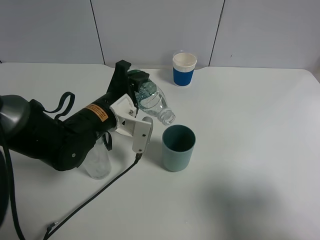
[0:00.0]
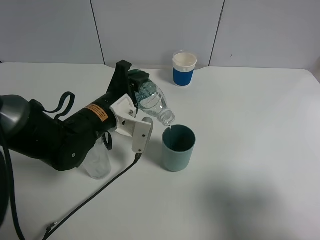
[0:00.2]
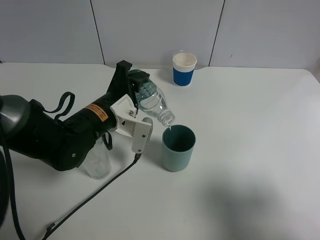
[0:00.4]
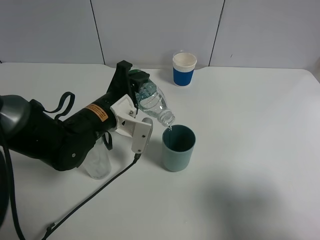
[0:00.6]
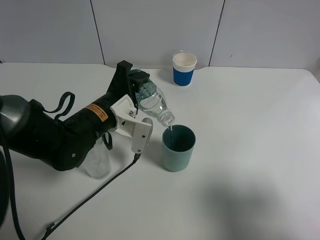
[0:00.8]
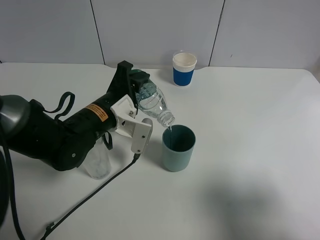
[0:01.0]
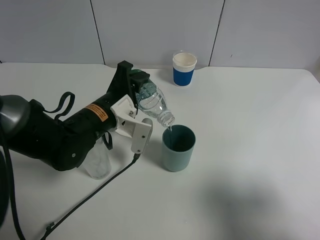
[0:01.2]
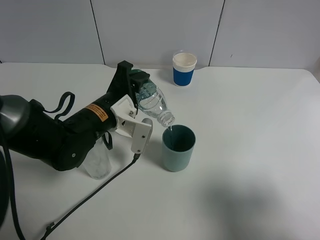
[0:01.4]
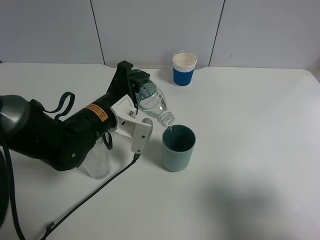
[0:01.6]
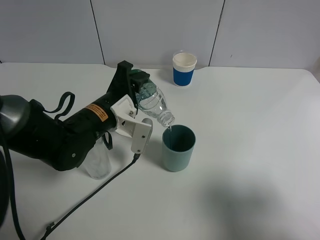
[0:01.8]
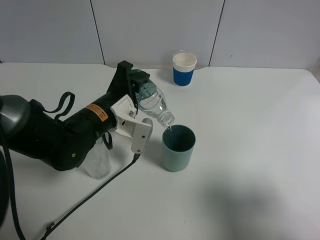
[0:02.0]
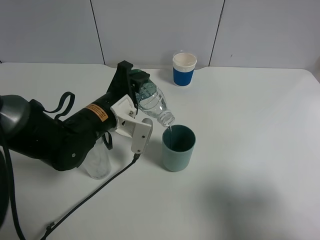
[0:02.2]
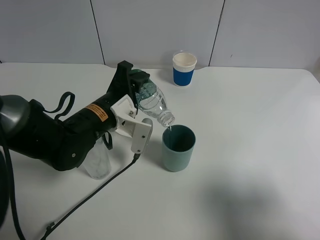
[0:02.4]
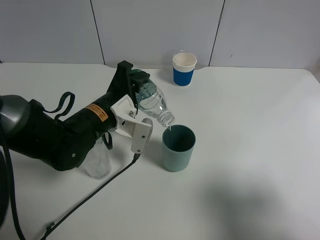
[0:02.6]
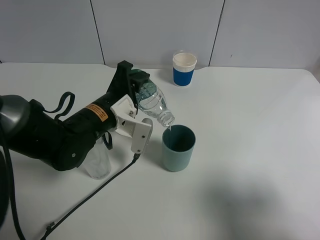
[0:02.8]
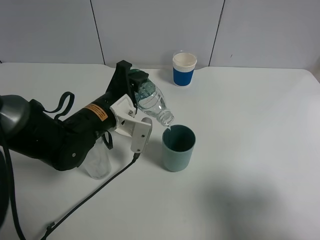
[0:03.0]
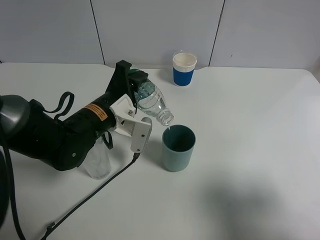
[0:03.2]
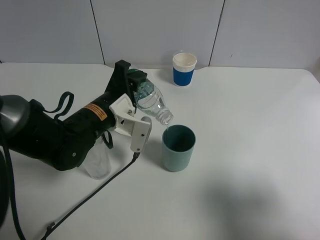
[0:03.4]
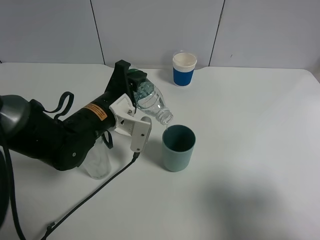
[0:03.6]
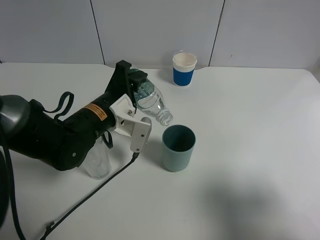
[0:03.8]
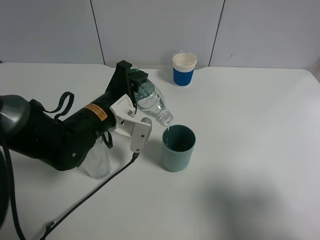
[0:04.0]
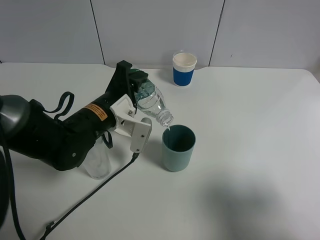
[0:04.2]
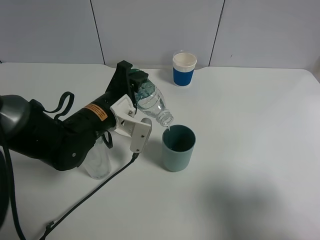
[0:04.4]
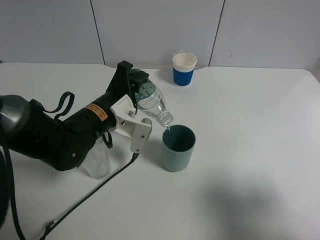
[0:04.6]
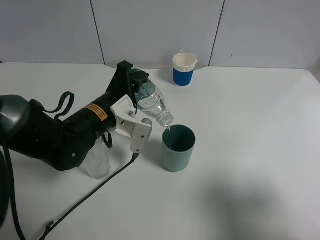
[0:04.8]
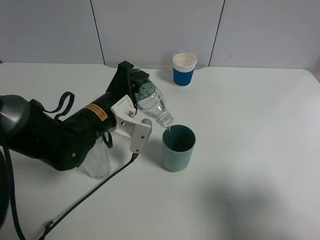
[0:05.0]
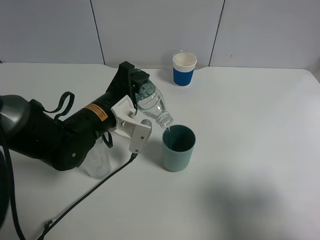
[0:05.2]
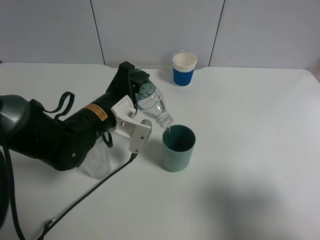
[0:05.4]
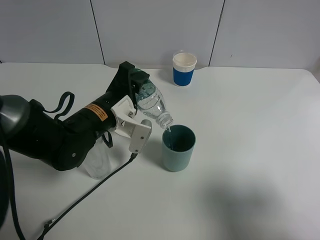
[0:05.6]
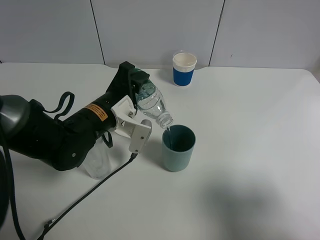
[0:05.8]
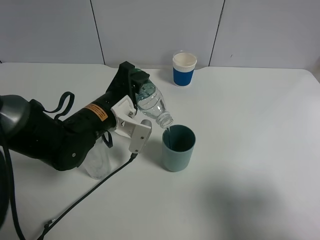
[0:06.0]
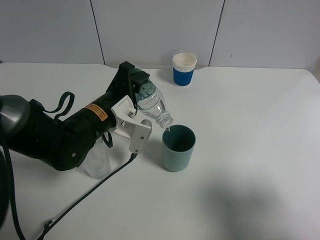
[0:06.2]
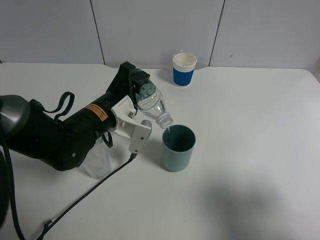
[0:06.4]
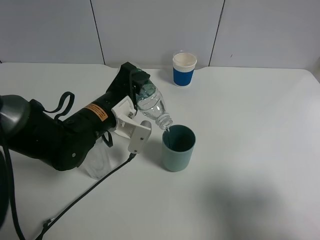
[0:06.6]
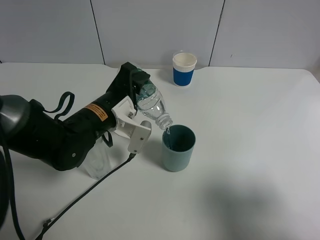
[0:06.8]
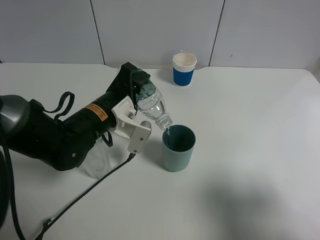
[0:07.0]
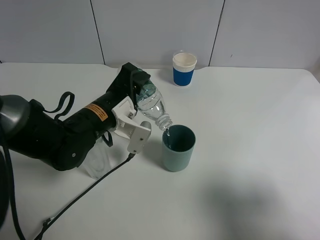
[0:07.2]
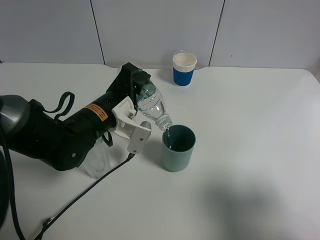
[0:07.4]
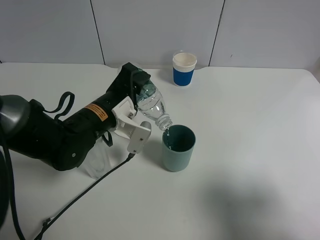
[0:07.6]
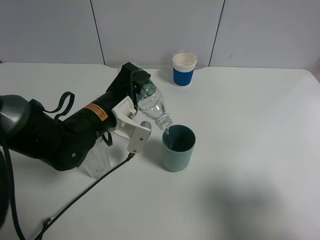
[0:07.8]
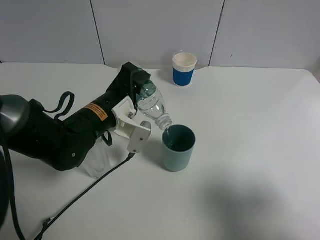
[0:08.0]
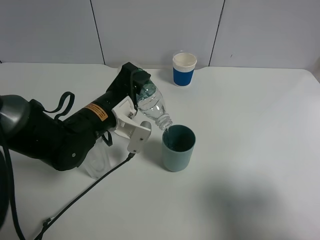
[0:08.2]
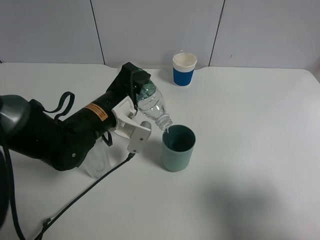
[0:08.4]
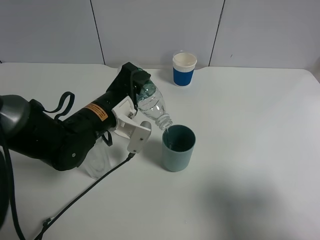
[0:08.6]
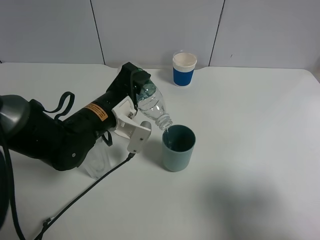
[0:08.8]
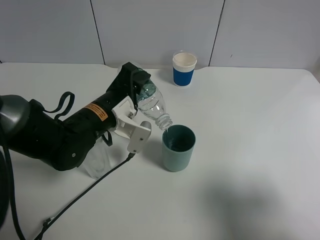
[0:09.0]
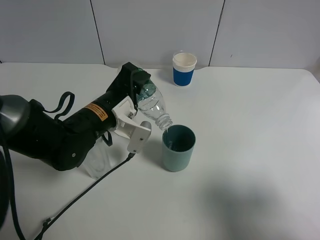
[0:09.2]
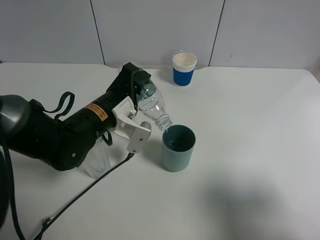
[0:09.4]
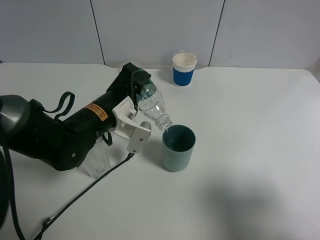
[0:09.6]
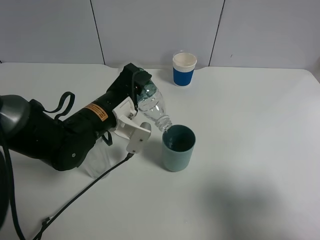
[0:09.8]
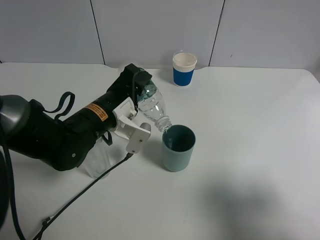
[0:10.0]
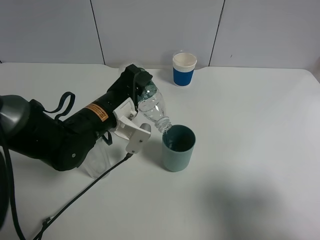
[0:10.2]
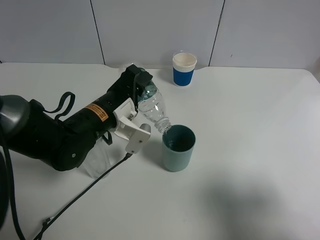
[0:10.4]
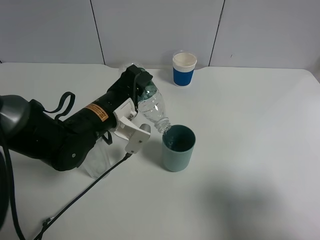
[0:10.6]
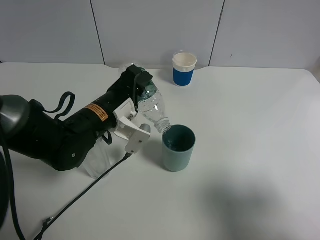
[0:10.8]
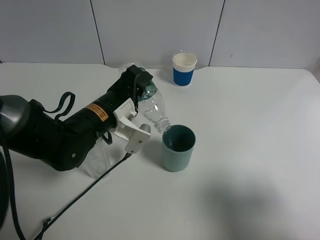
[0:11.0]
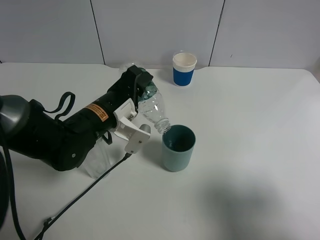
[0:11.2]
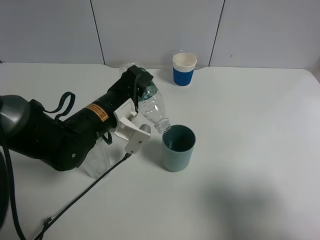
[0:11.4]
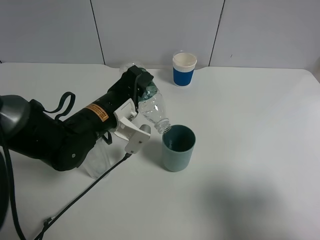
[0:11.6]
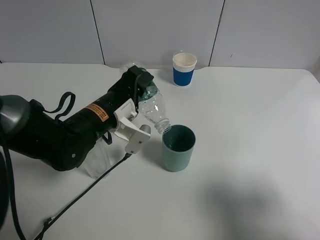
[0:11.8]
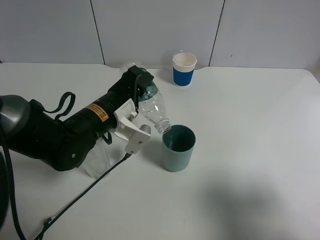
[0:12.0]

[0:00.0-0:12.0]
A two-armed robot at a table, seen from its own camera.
Task of the whole recording: use a gripper to hold the bottle of the drink and pour it into a random cup.
0:00.0 to 0:04.4: The two grippers keep their place.
0:04.4 to 0:06.0: The two grippers keep their place.
0:06.0 to 0:09.0: Both grippers stay about where they are.
0:09.0 to 0:10.4: There are only small adjustments of the grippers.
0:10.4 to 0:12.0: Both grippers stay about where they are.

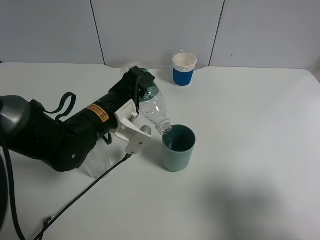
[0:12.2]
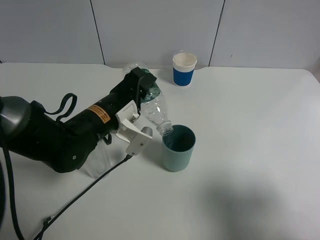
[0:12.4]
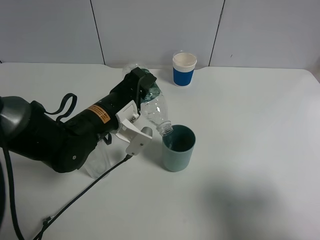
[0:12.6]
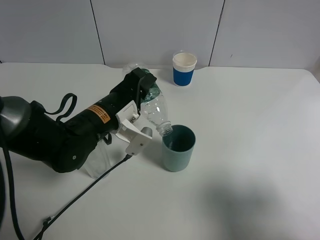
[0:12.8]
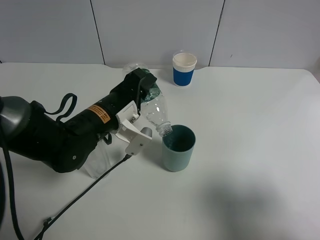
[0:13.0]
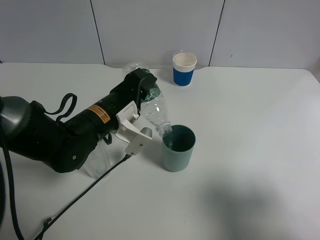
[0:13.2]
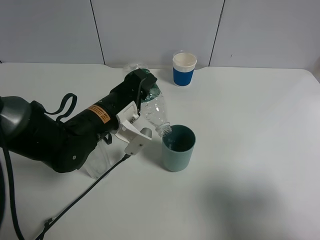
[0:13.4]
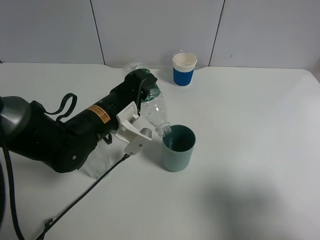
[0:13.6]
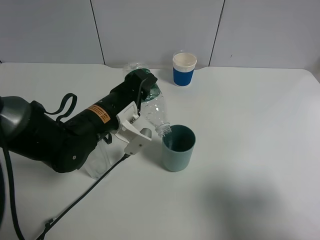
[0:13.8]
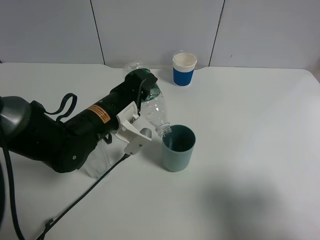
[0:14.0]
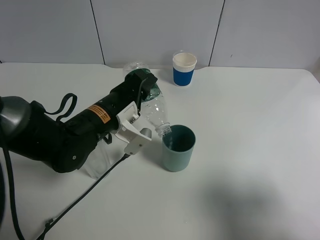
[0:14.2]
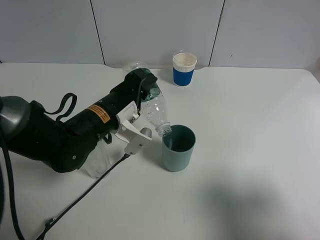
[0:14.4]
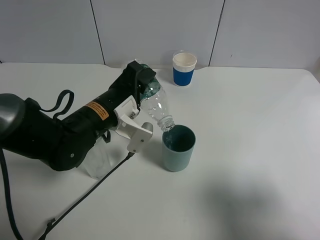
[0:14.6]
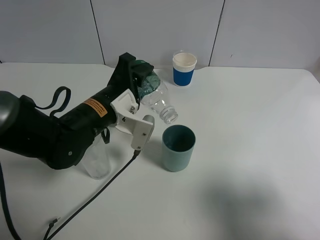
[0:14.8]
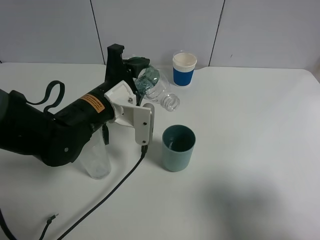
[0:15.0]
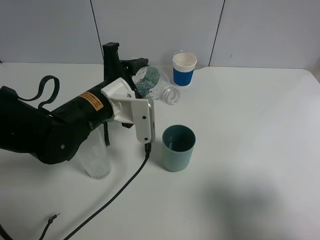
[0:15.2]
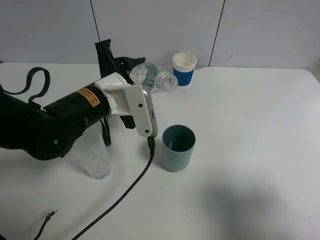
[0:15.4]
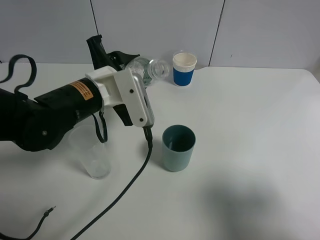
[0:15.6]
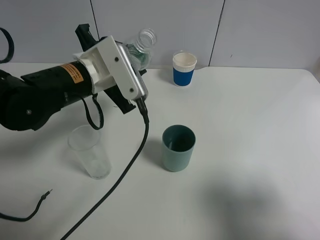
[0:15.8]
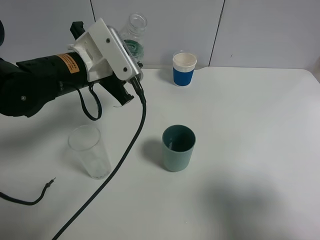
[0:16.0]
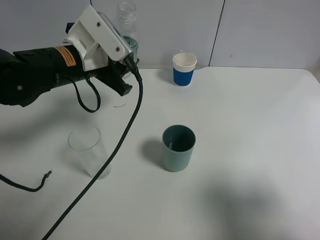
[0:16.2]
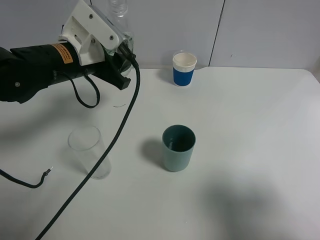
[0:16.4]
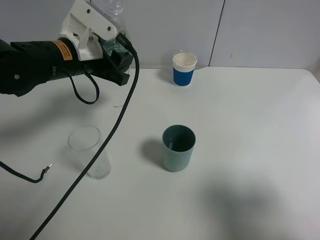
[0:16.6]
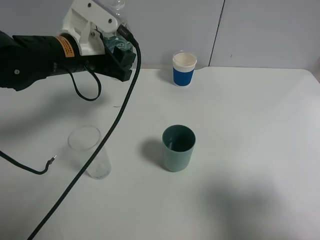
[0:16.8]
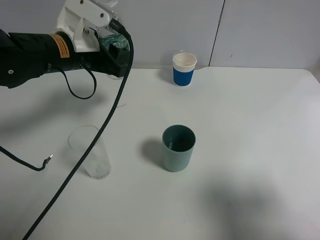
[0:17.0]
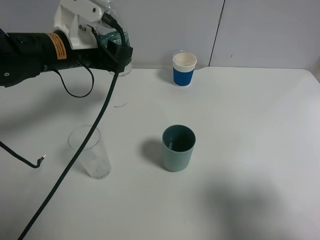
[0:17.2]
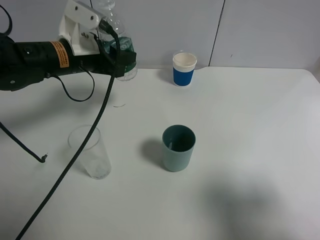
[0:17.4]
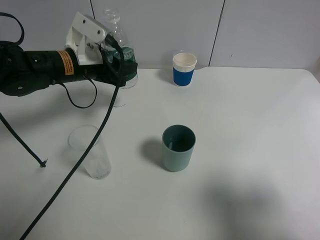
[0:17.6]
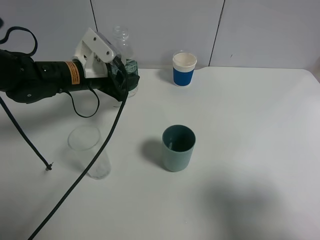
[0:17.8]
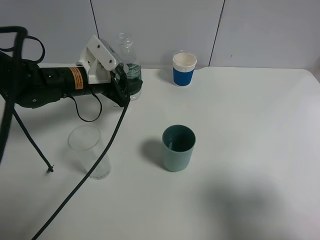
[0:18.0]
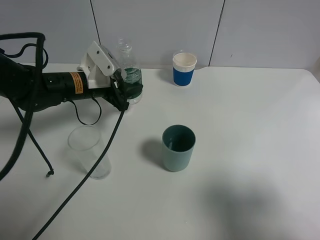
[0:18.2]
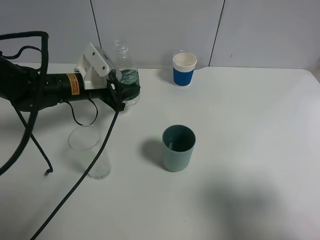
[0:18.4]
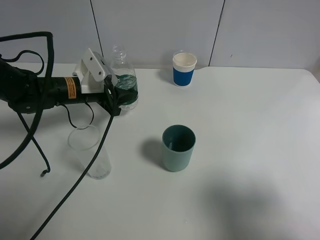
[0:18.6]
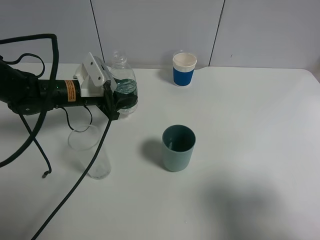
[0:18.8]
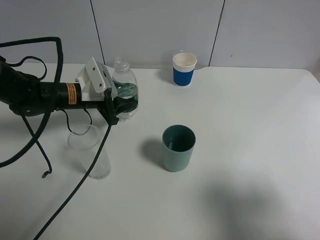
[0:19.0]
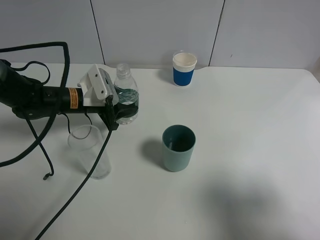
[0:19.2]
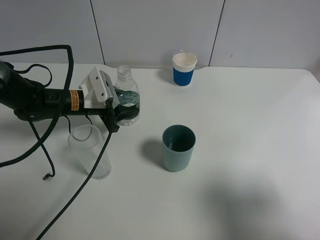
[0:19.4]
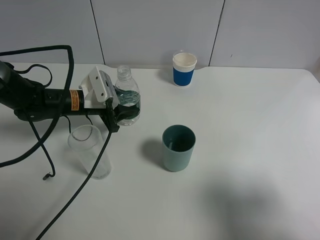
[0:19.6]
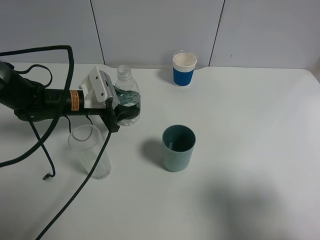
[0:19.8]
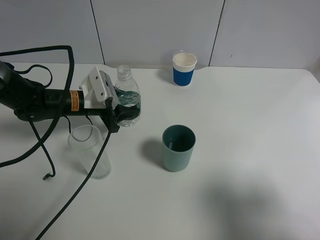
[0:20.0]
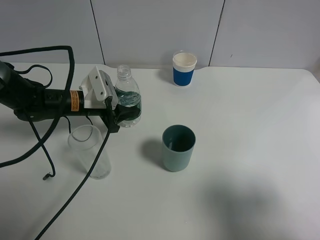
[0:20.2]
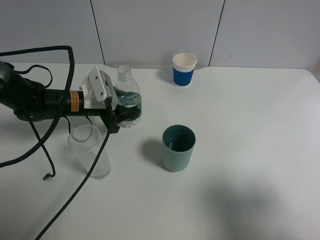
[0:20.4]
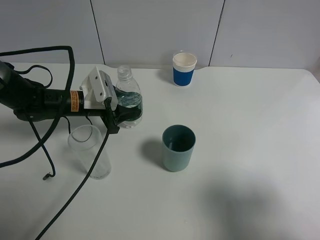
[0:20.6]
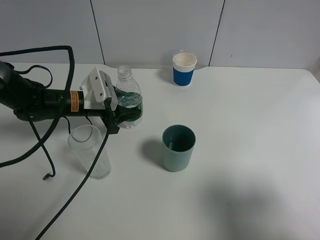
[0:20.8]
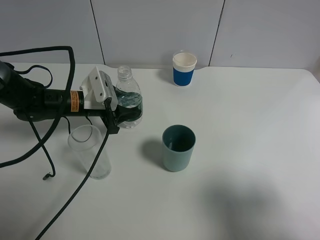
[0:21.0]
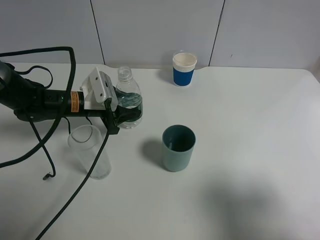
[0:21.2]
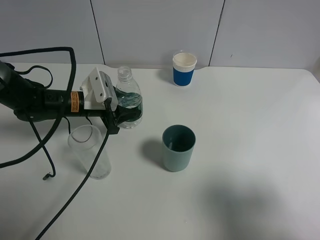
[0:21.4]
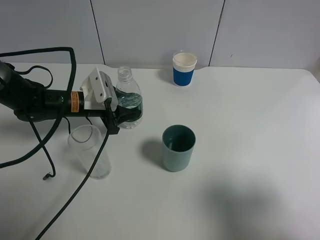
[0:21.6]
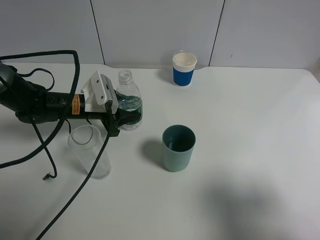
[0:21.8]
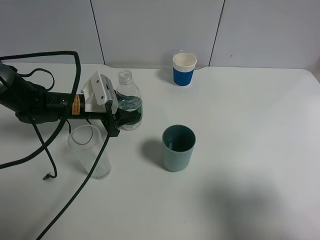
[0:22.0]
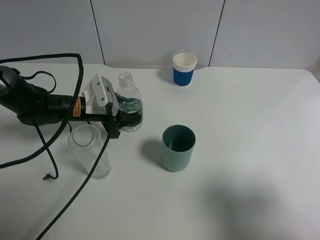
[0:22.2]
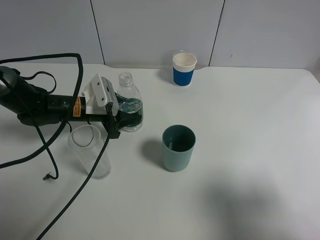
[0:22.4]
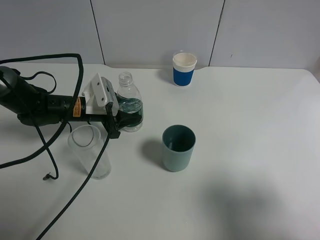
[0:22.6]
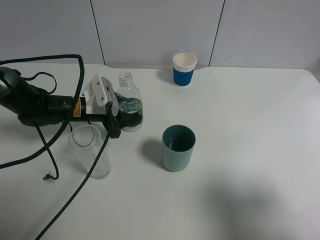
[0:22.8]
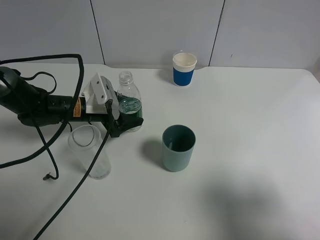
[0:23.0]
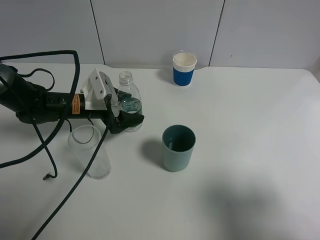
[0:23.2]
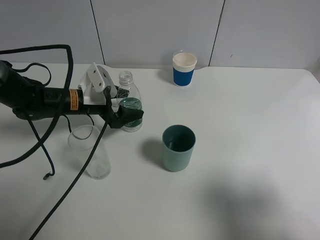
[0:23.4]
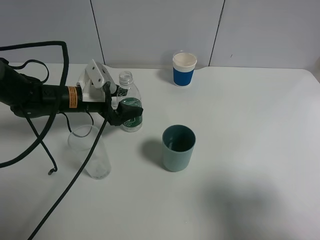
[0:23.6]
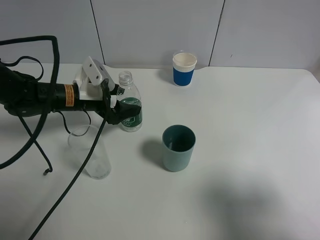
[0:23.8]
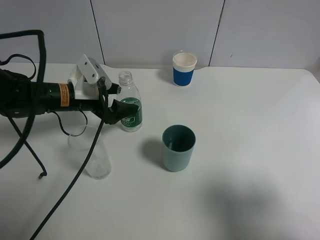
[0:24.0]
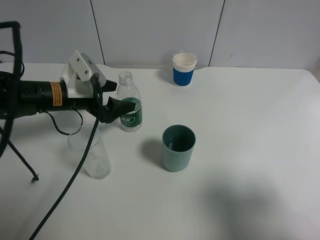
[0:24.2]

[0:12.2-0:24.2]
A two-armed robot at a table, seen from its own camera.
Task of the whole recording: use a gripper to hold the bottle of the drink and pour it into a random cup.
Step, 0:15.0 to 0:23.2: Place the mineral water bottle on the table with the left gripper.
0:12.2 to 0:13.8: Neither gripper changes place.
0:15.2 to 0:16.6: The left gripper heads upward and forward, covering approximately 10 cm.
0:16.6 to 0:18.2: The left gripper heads downward, covering about 10 cm.
0:18.2 to 0:19.8: There are only small adjustments of the grippers.
0:19.8 to 0:21.2: The two grippers keep their place.
0:21.2 to 0:22.6: Both grippers stay put.
0:22.6 to 0:24.2: The left gripper travels upward by some 5 cm, and opens up.
